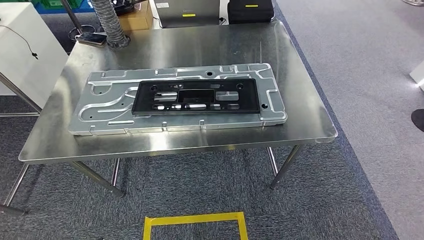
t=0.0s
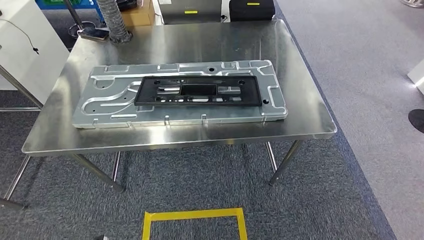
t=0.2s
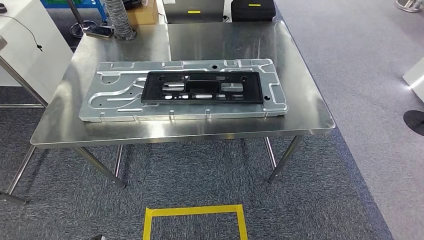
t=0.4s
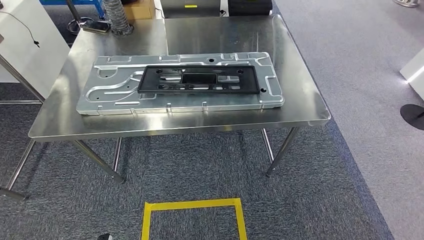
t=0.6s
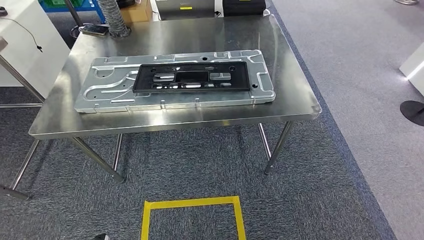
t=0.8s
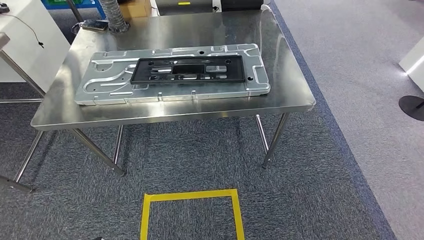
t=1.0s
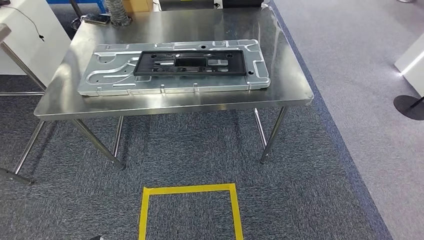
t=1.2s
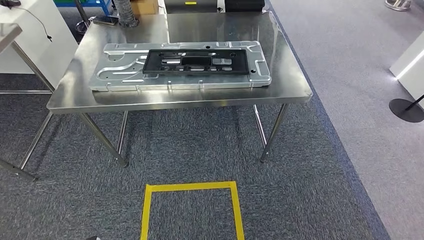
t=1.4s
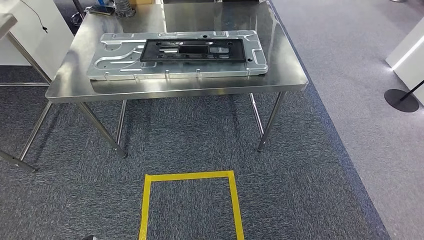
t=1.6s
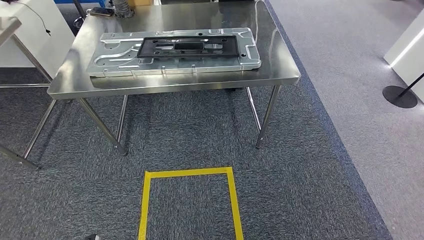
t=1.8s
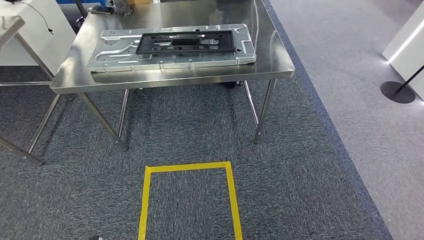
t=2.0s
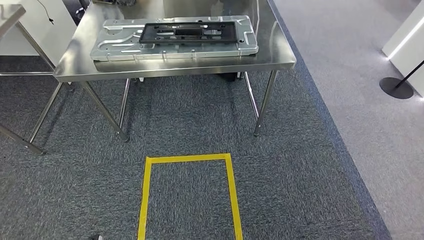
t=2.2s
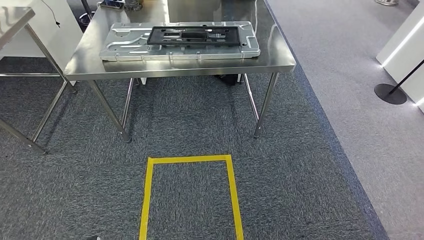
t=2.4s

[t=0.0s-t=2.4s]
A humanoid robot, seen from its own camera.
Step, t=0.0s to t=2.4s: Return to the initial position at the shelf.

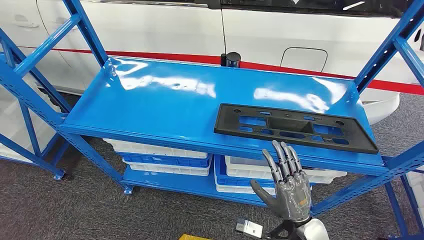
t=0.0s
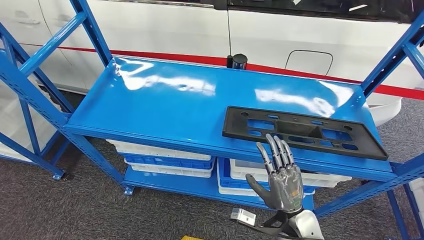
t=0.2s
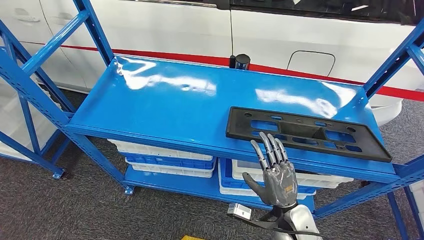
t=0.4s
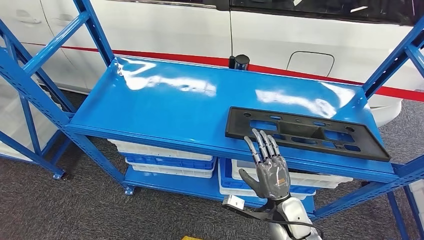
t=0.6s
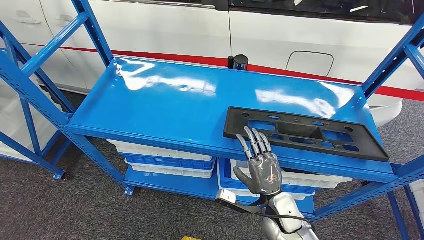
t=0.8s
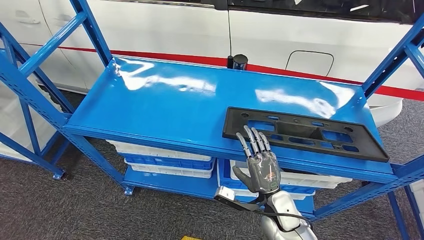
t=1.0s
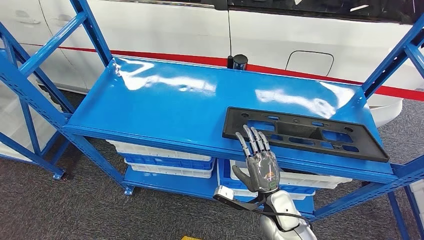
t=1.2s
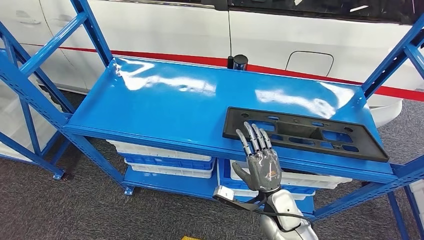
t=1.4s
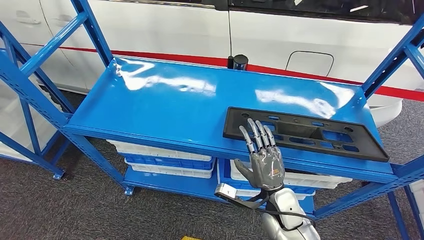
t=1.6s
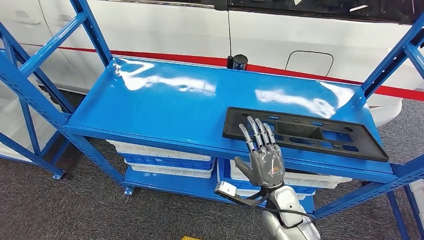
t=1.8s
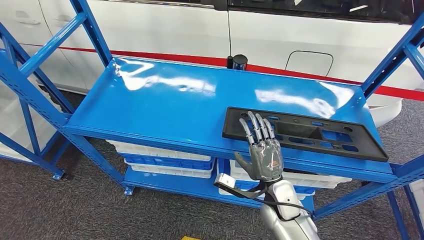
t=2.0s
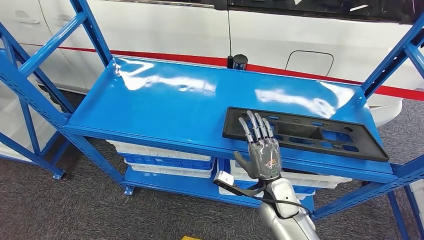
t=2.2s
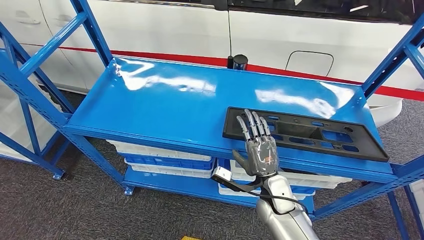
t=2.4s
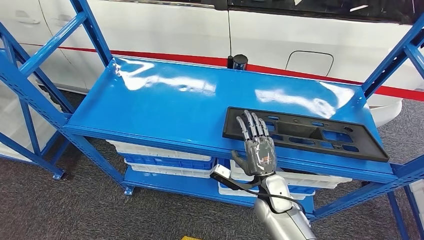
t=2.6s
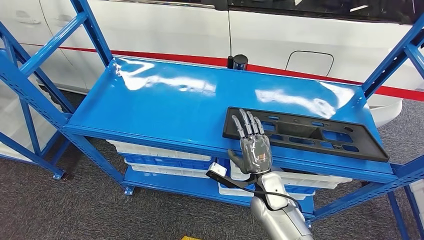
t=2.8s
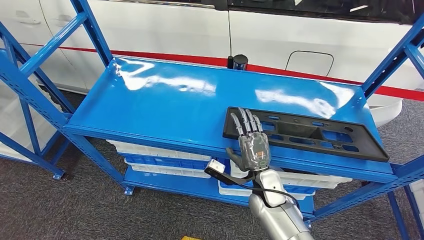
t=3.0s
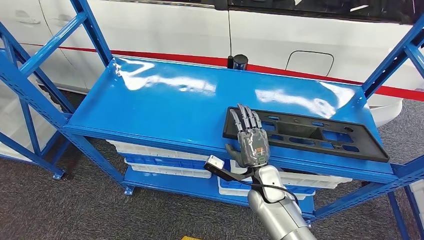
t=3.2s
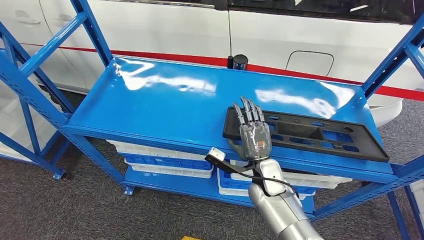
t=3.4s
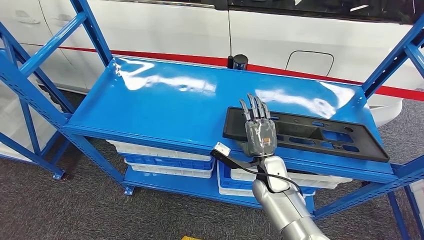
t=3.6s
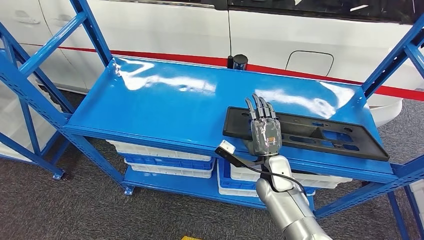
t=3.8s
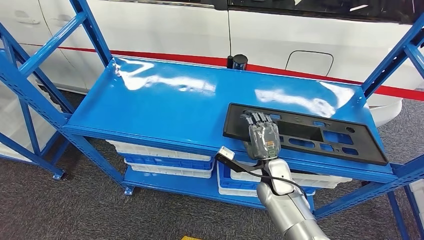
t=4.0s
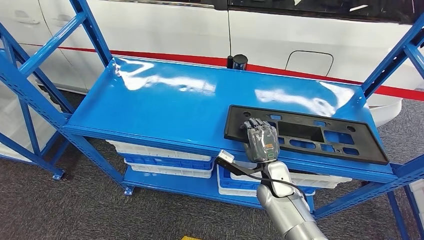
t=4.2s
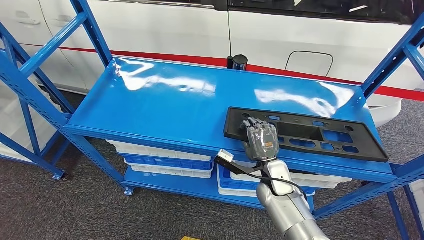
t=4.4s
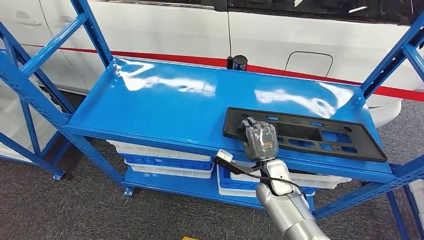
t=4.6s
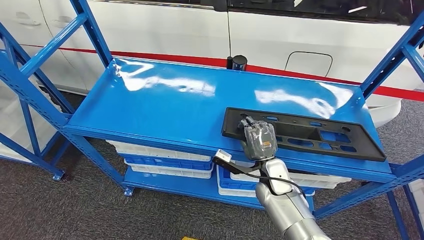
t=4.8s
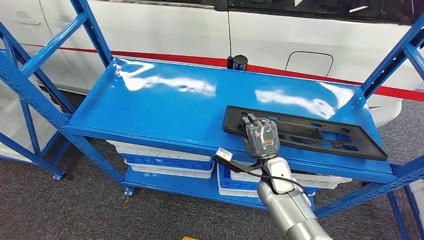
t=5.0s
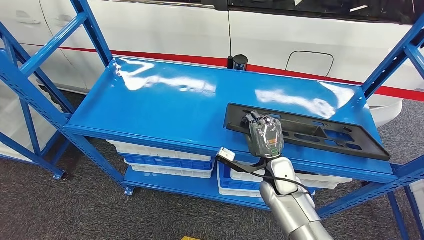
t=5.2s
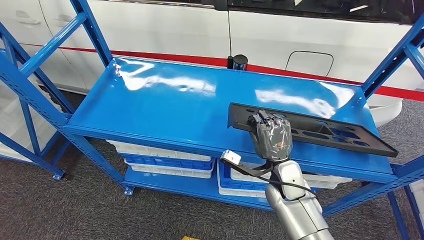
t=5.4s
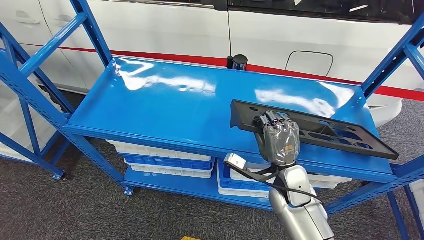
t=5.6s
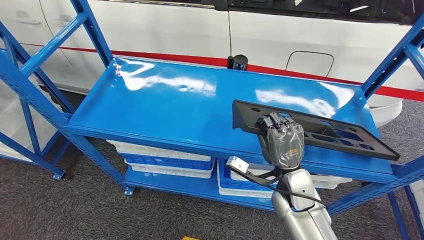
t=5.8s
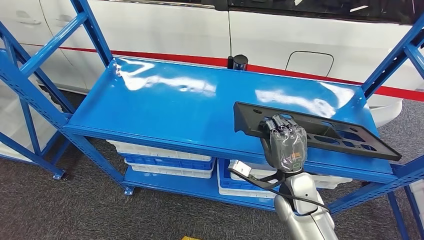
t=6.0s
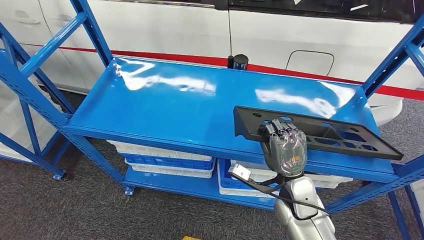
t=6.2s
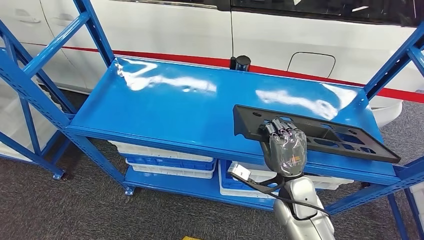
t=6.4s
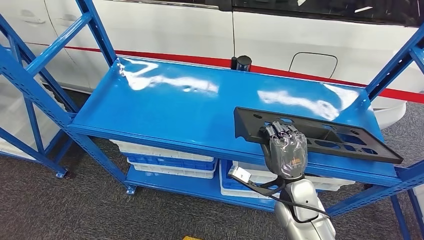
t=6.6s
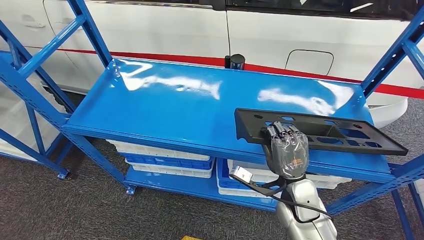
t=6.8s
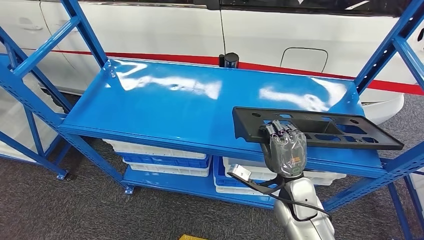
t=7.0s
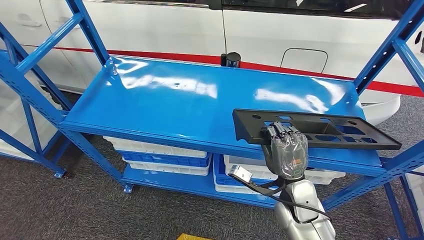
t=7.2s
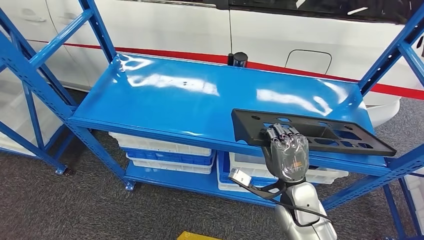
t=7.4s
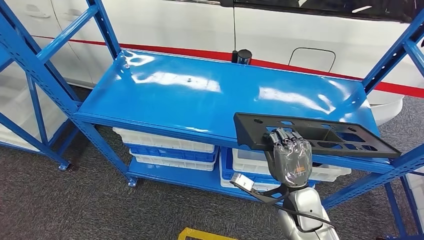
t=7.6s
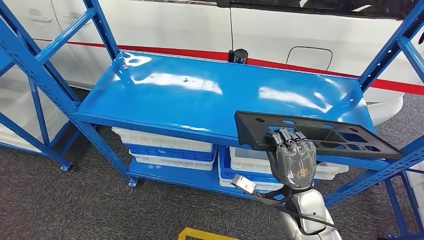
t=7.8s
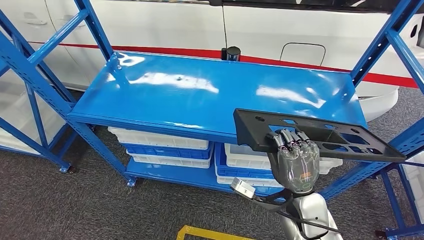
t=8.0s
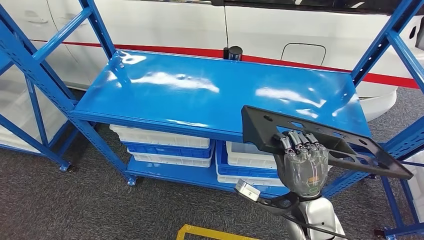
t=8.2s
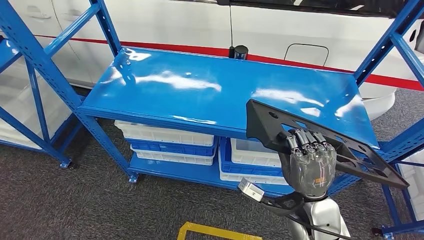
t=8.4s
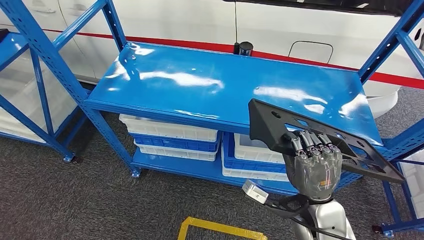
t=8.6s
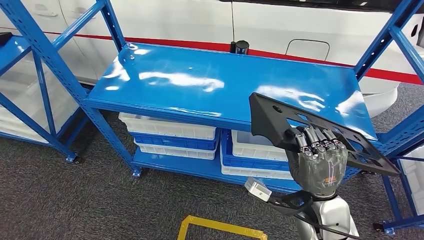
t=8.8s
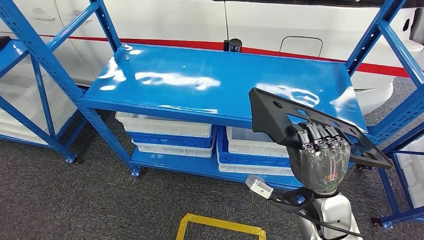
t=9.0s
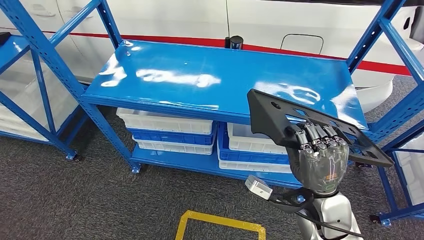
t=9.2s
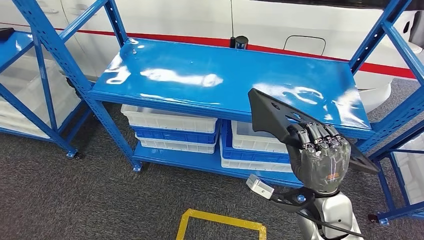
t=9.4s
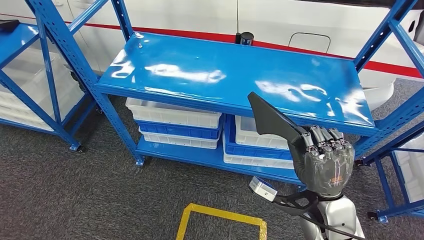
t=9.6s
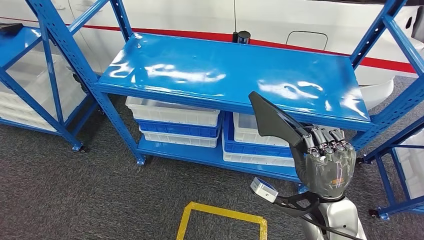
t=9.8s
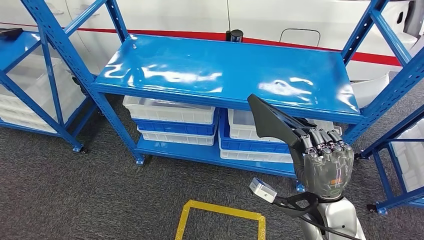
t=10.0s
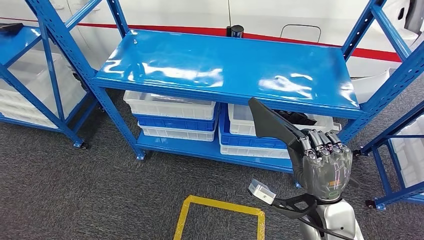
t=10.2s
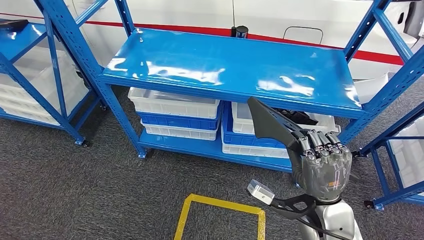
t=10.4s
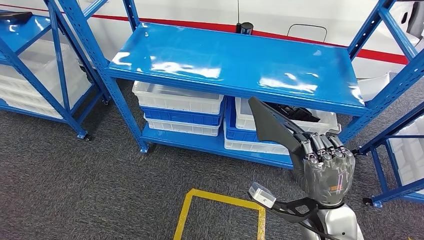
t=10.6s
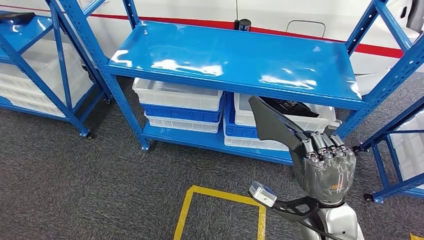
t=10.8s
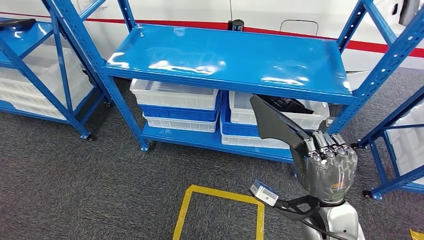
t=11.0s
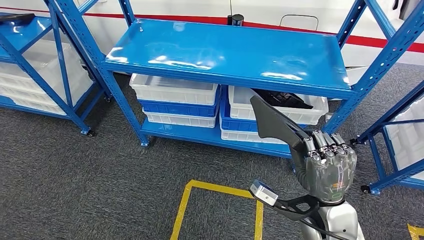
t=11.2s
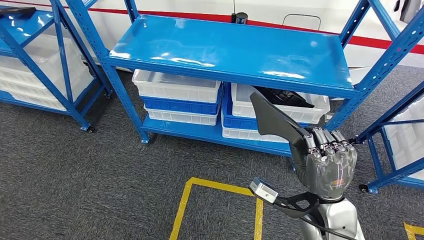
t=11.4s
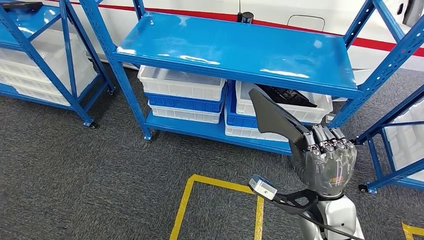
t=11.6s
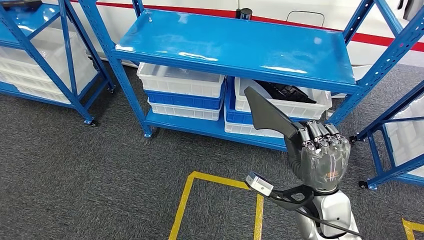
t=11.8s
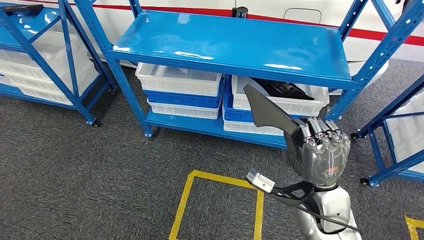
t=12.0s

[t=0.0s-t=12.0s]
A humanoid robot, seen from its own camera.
Step, t=0.0s to t=10.0s: Pick up the large material from the shelf.
t=1.6s to t=3.0s: The right hand heads forward, covering some 5 cm.
t=3.0s to t=4.4s: There are only small adjustments of the hands.
t=4.4s to t=6.0s: The right hand travels upward and backward by roughly 10 cm.

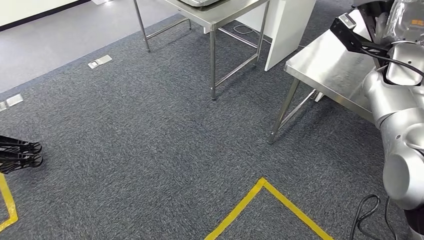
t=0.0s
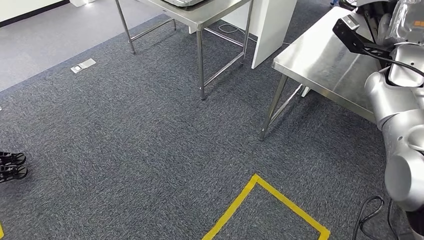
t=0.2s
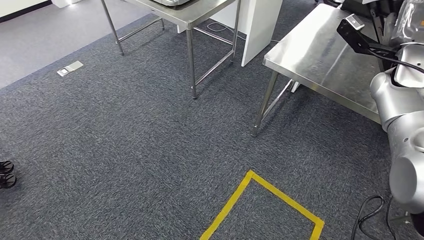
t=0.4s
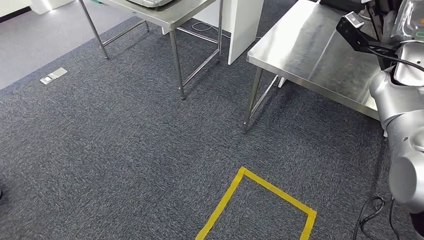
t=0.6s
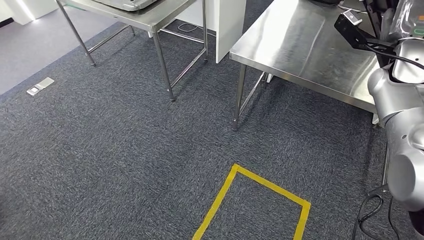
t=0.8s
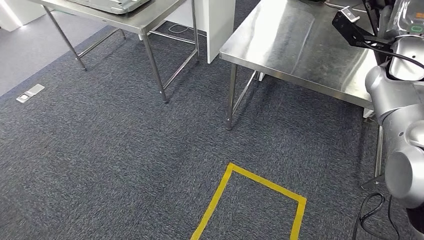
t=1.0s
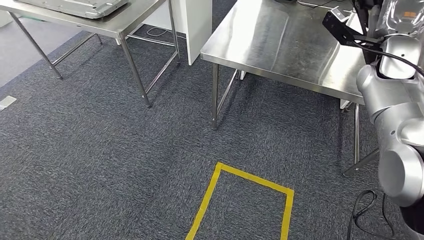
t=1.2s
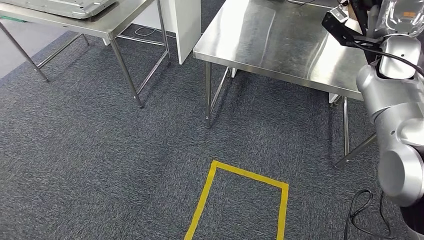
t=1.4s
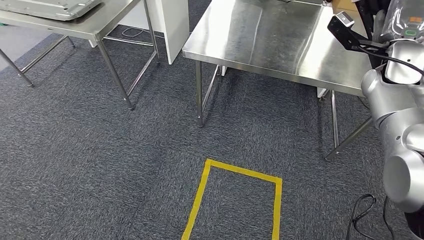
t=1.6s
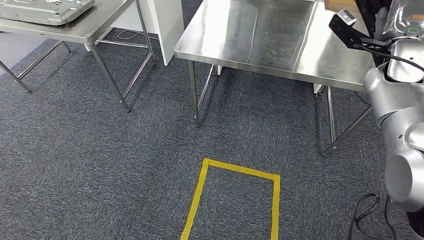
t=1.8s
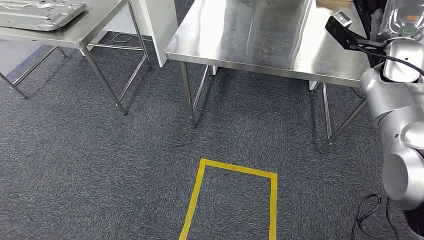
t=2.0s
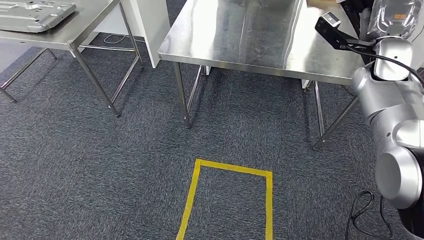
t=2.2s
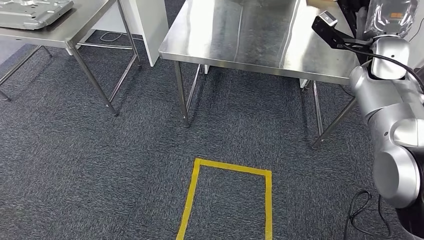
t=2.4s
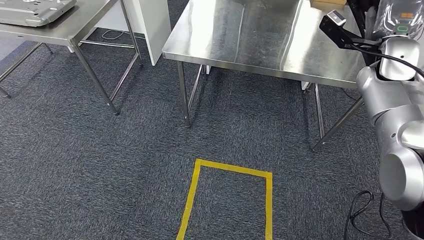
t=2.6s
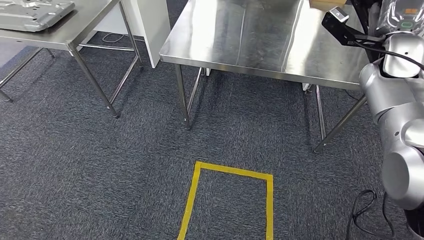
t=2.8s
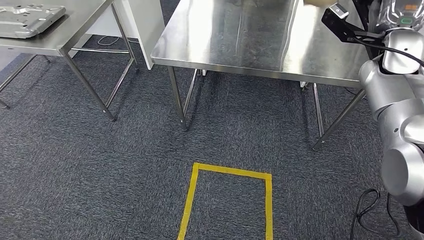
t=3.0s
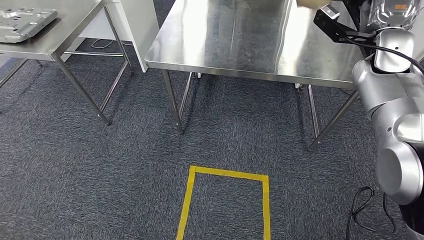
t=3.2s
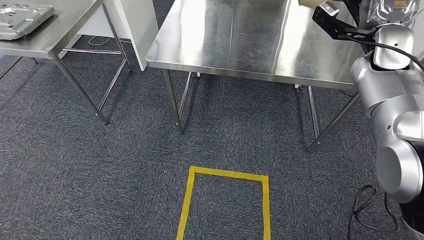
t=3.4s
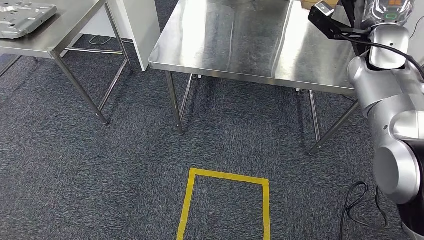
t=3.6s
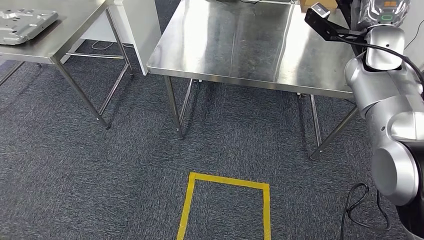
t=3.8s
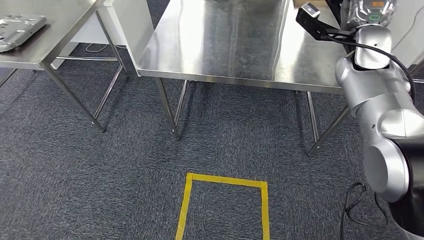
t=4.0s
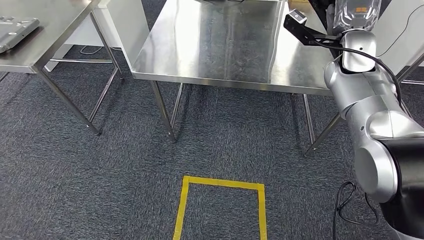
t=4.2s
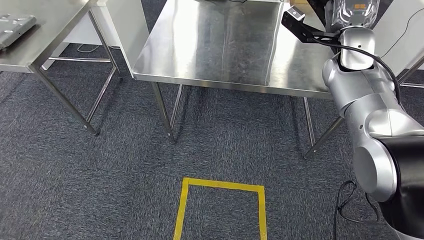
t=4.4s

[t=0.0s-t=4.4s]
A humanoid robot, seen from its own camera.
Step, t=0.0s to t=2.6s: Move the large material to the workbench.
